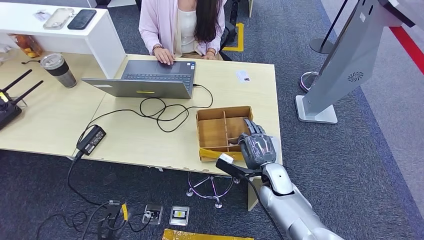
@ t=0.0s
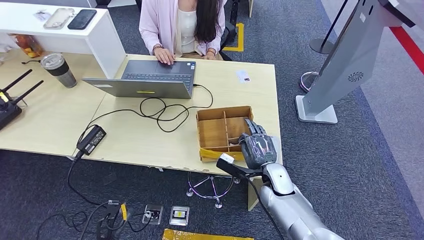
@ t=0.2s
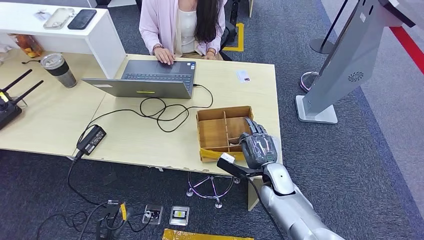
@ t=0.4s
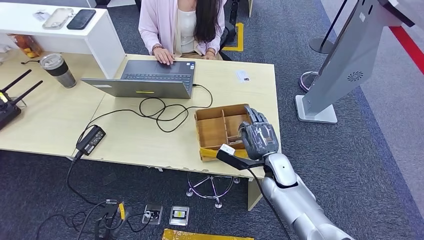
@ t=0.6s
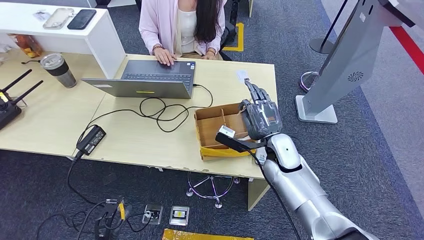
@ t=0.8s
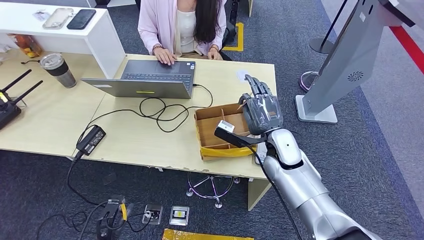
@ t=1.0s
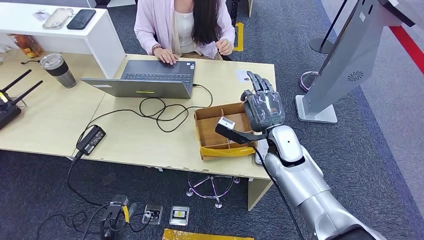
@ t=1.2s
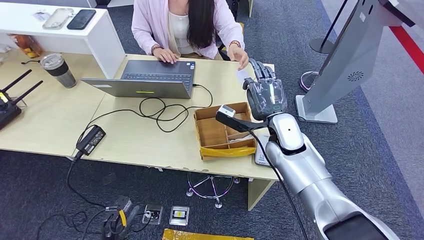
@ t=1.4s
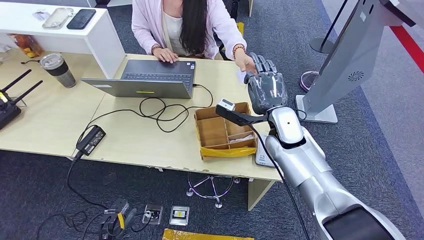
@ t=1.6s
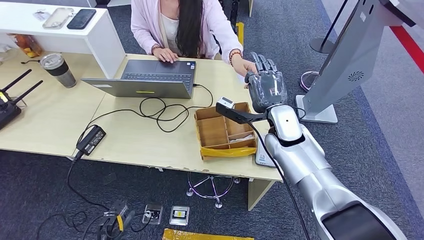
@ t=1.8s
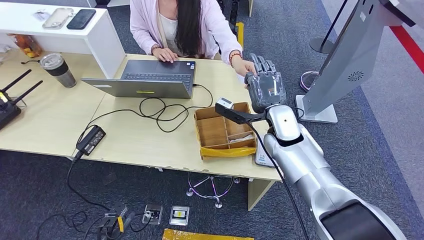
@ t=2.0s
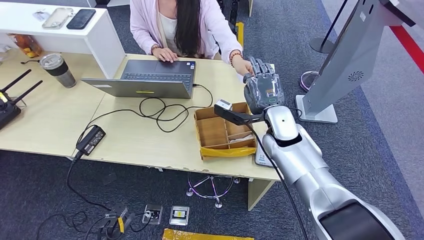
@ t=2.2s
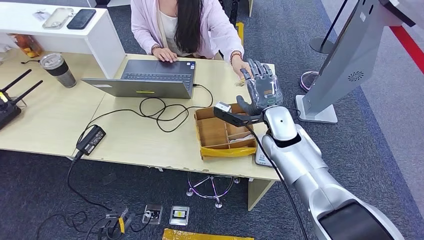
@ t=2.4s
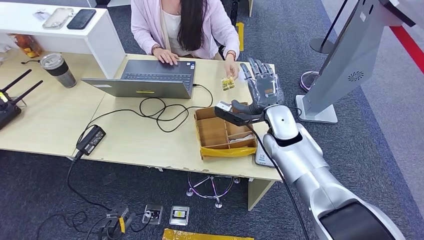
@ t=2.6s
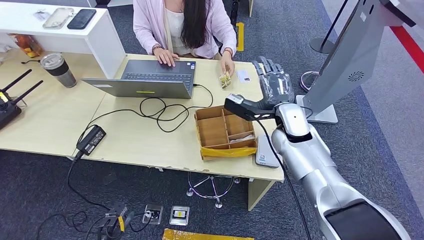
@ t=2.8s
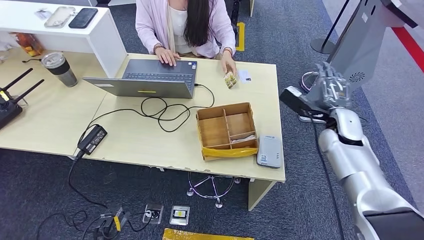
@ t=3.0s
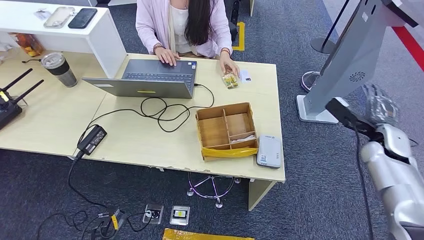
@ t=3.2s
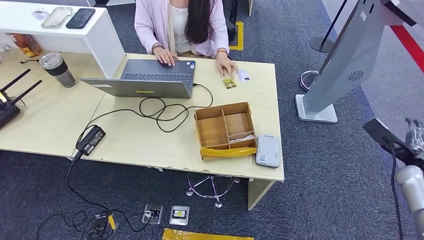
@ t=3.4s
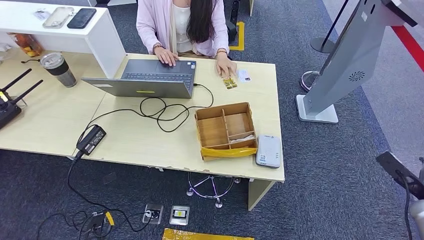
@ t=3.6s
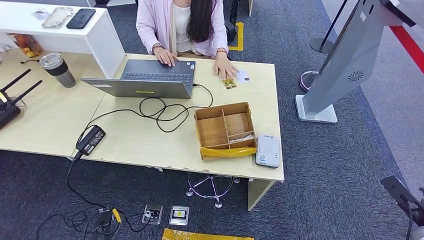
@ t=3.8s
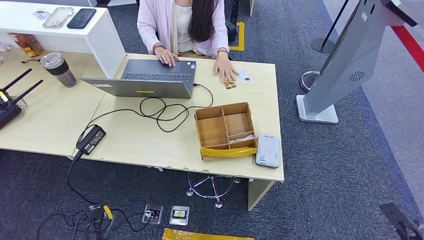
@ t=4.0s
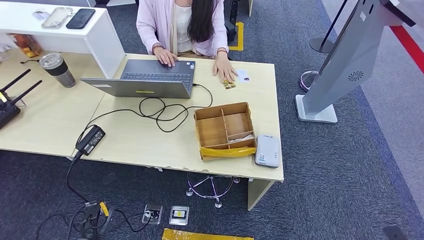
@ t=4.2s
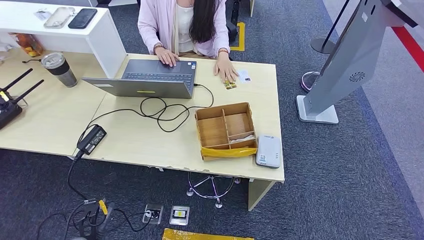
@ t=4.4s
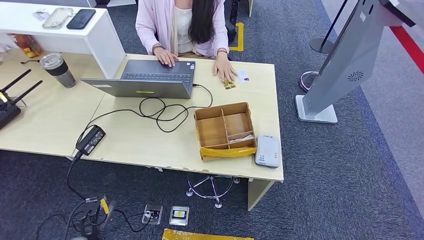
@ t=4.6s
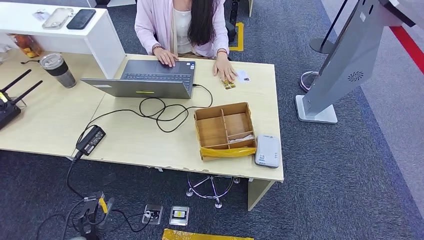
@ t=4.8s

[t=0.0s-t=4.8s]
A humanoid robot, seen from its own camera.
Step, t=0.0s to t=4.8s: Hand the room key to the person.
t=0.0s to t=1.6s: The right hand goes roughly 15 cm upward and forward.
t=3.2s to t=4.8s: The left hand moves upward, roughly 5 cm. Meanwhile the right hand travels backward and downward by about 40 cm.

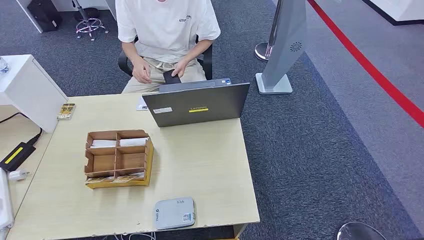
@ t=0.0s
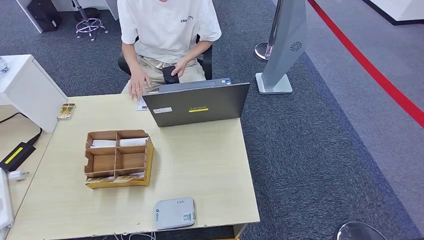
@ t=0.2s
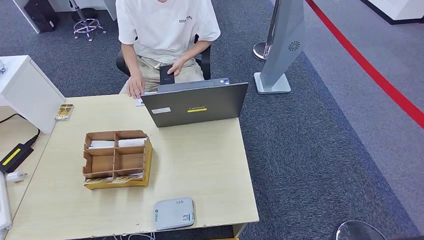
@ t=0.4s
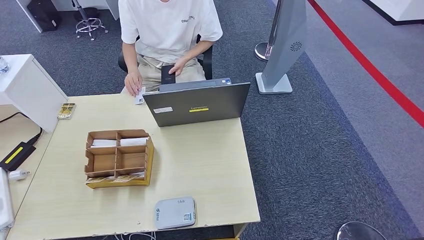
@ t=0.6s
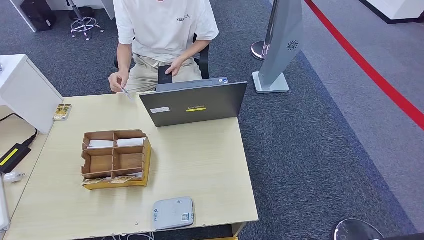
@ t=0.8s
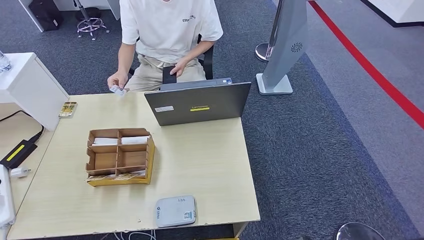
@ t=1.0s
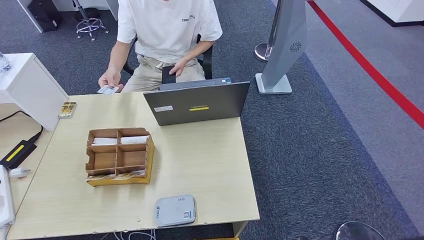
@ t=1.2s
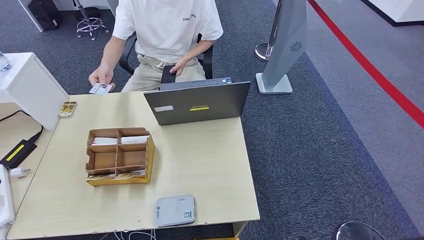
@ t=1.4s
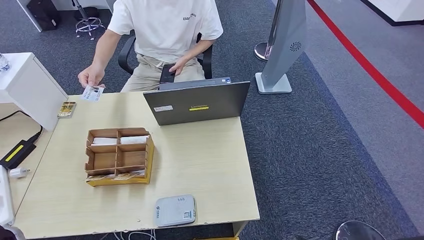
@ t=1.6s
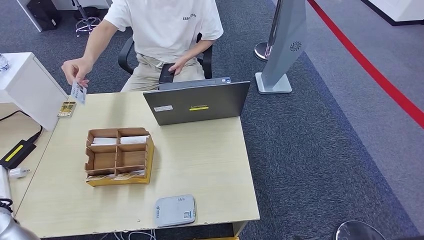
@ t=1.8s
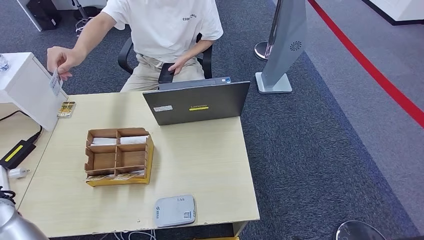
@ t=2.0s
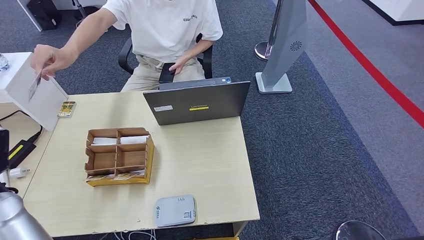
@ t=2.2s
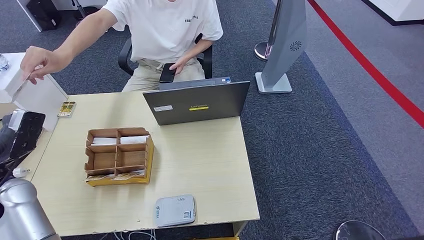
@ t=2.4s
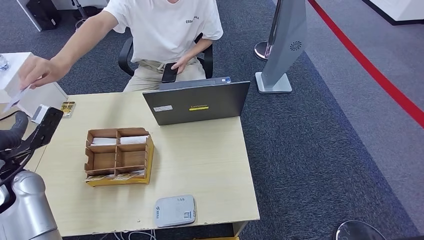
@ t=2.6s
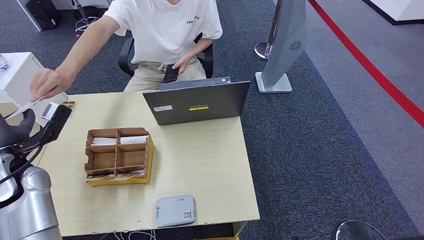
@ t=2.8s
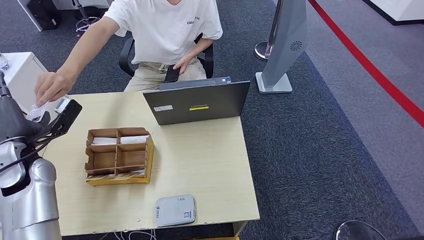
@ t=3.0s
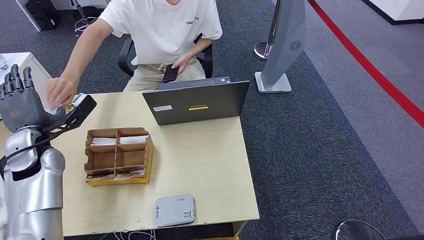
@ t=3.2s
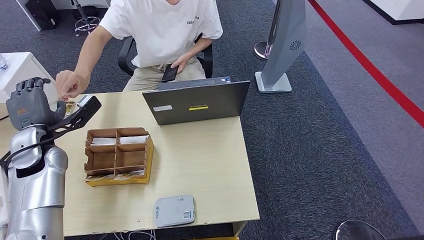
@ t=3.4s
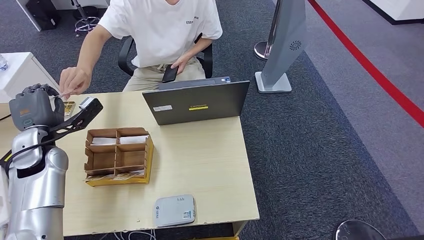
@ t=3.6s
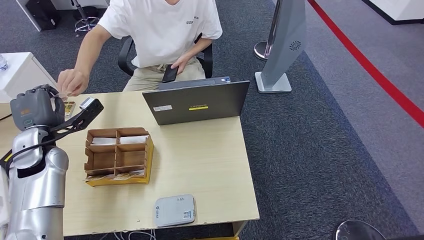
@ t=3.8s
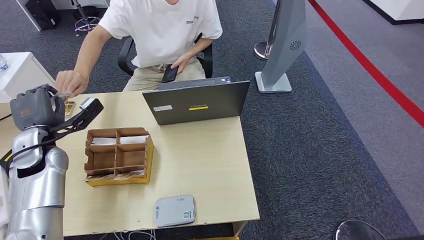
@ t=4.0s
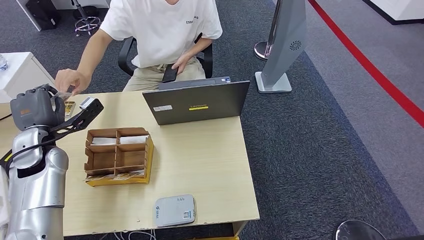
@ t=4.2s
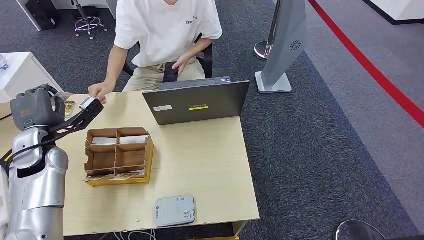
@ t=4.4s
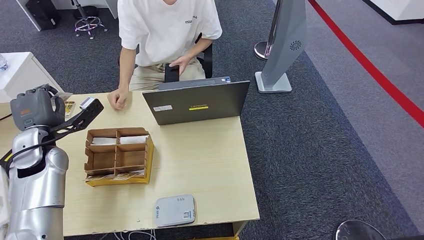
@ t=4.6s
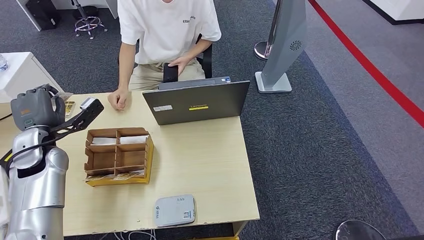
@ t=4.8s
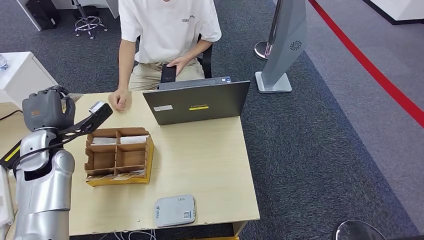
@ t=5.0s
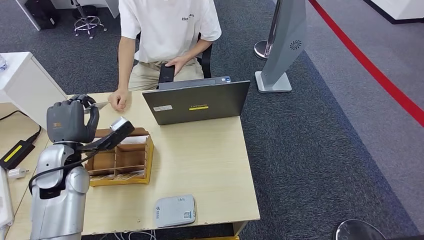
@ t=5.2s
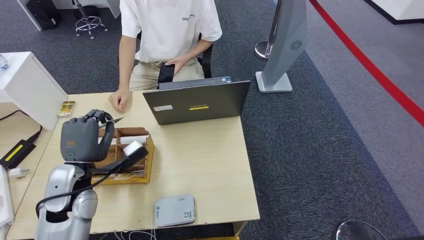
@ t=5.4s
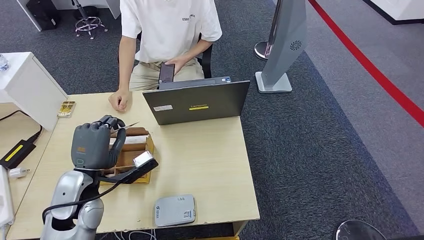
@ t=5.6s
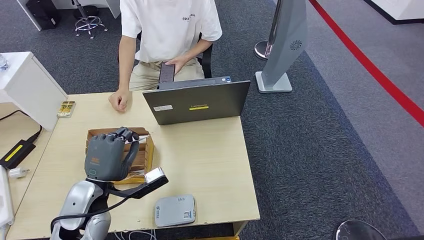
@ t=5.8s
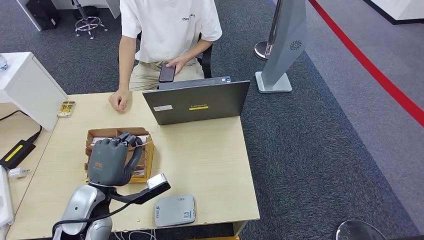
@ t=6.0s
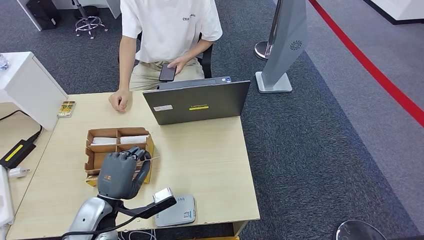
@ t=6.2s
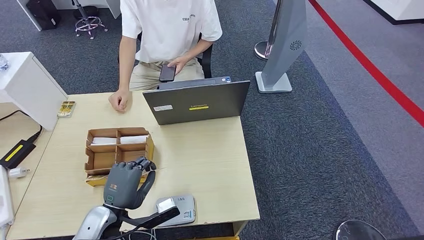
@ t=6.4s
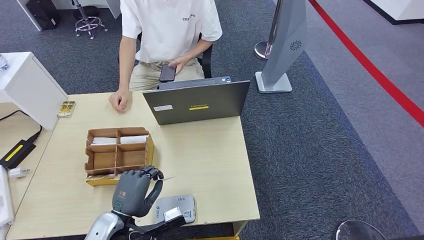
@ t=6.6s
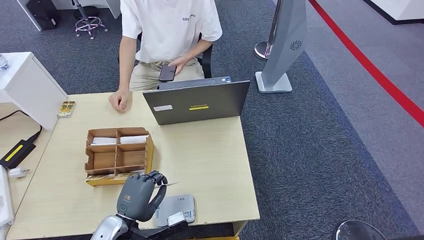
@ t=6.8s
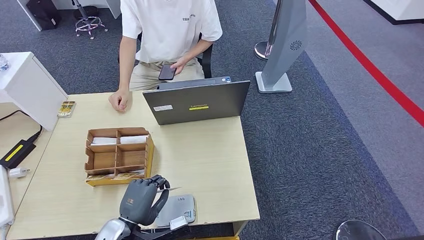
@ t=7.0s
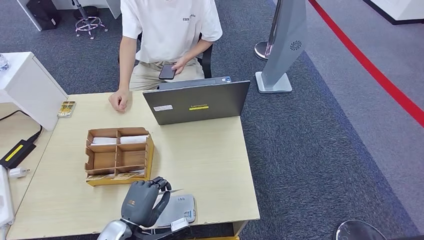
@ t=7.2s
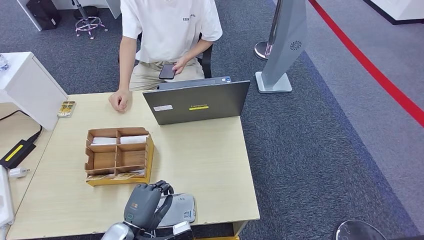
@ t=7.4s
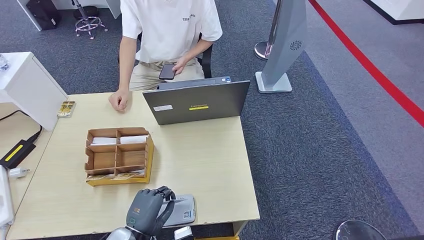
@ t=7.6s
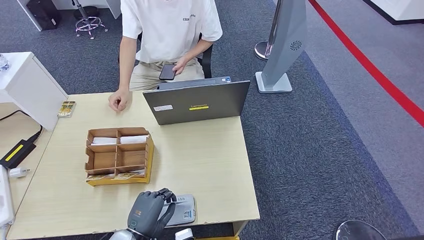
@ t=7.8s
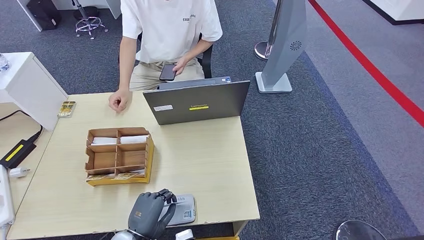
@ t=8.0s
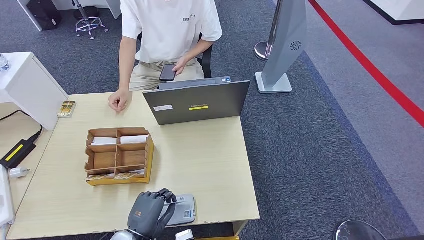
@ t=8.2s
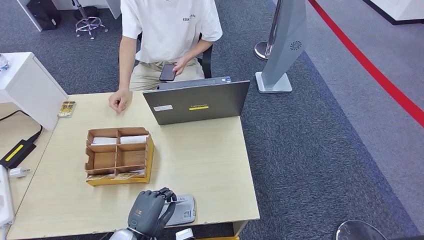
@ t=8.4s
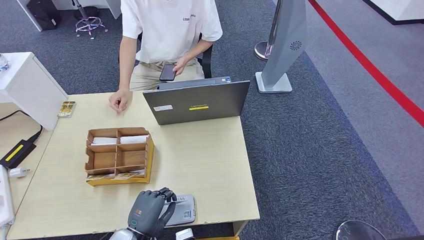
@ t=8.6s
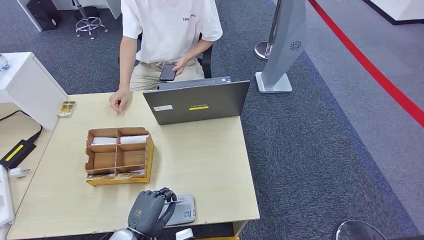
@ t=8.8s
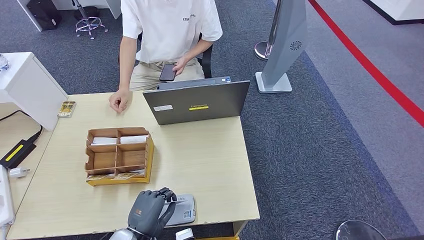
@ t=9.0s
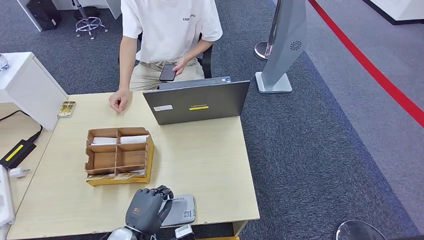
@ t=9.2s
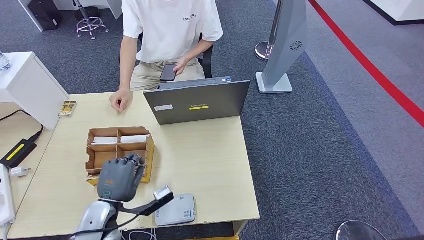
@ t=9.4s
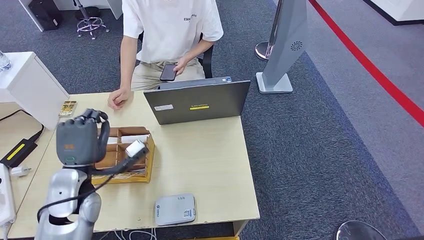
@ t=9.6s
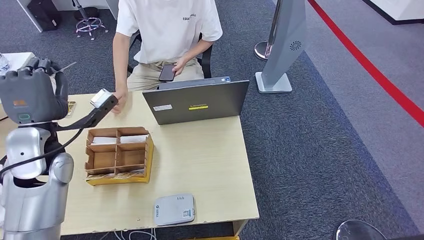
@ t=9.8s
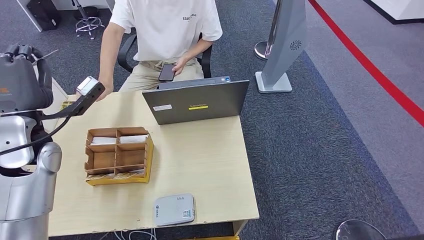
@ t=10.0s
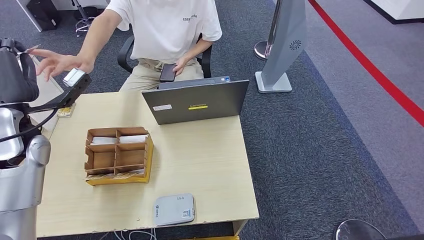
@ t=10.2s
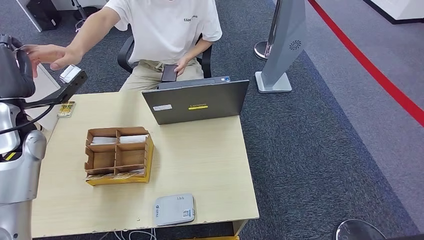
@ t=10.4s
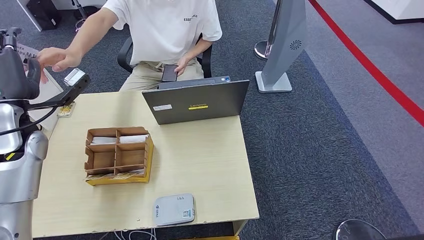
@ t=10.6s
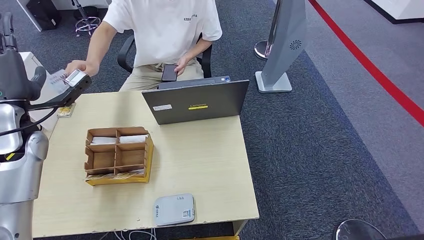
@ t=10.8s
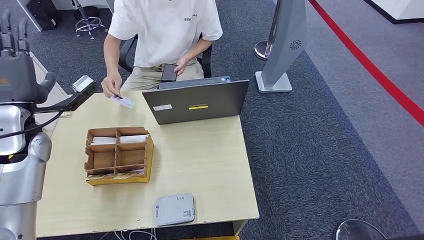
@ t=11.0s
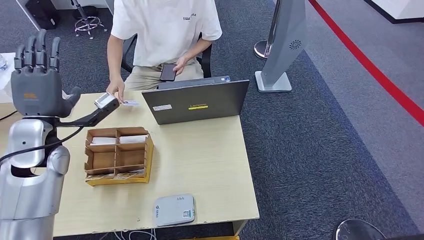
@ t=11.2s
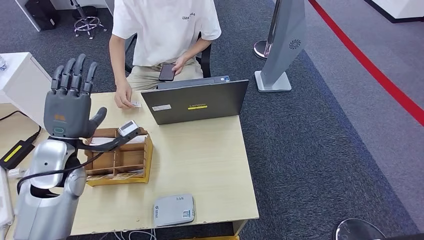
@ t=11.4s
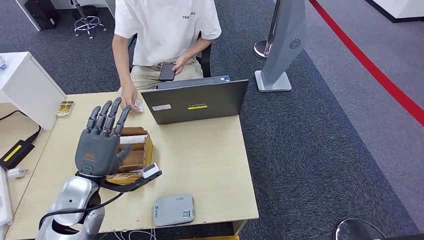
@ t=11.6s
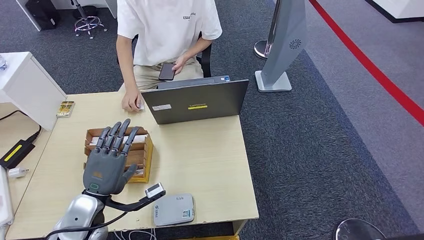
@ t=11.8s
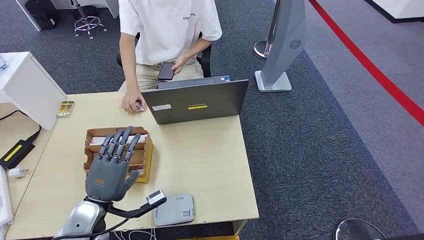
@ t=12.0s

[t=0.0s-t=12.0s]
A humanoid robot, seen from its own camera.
Step, t=0.0s to t=4.4s: Take the ID card from the person's hand.
Step, t=4.6s to t=8.6s: Place the ID card on the card reader.
Step, t=8.8s to t=11.0s: Hand the ID card to the person.
t=1.6s to t=3.0s: The left hand is displaced forward by roughly 10 cm.
t=3.0s to t=4.4s: The hands move only a little.
t=4.4s to t=6.0s: The left hand moves backward and to the right, approximately 20 cm.
t=6.0s to t=7.6s: The left hand travels downward and backward by some 15 cm.
t=7.6s to t=9.0s: There are only small adjustments of the hands.
t=9.0s to t=10.4s: The left hand travels upward, forward and to the left by about 40 cm.
t=10.4s to t=12.0s: The left hand heads downward, backward and to the right, covering about 25 cm.
